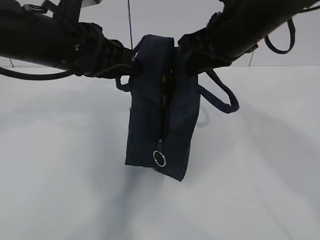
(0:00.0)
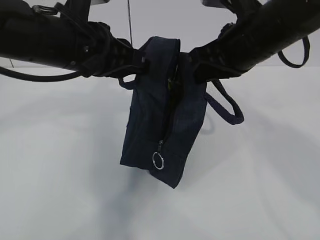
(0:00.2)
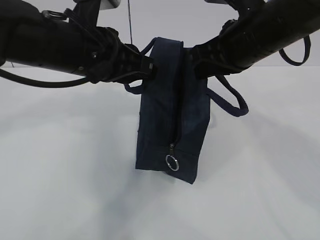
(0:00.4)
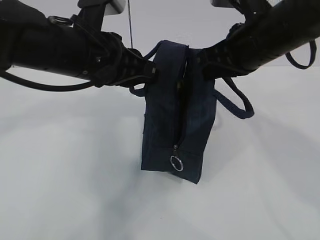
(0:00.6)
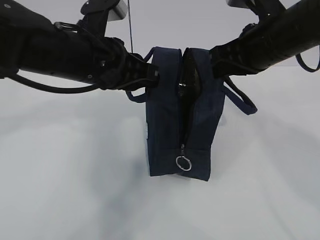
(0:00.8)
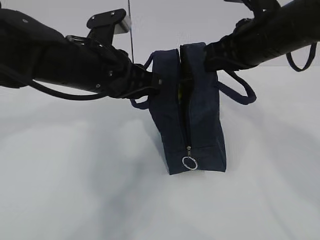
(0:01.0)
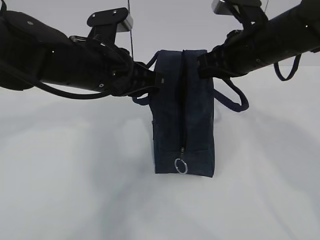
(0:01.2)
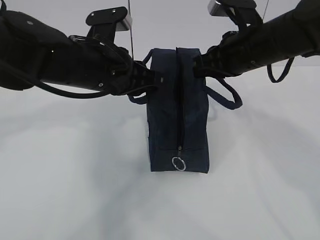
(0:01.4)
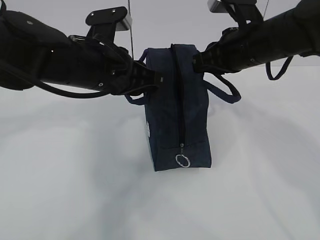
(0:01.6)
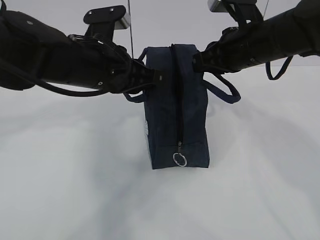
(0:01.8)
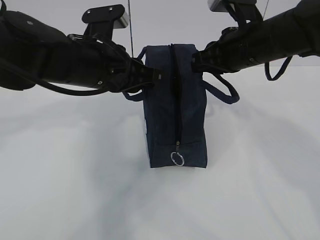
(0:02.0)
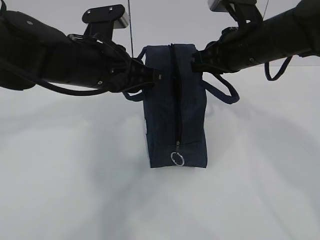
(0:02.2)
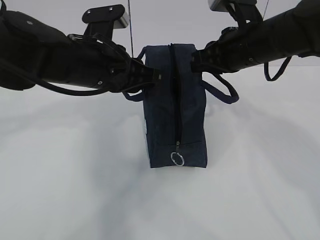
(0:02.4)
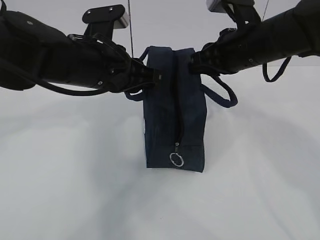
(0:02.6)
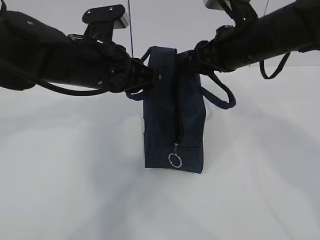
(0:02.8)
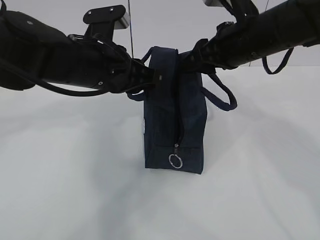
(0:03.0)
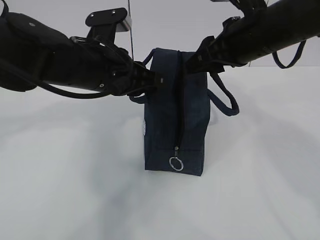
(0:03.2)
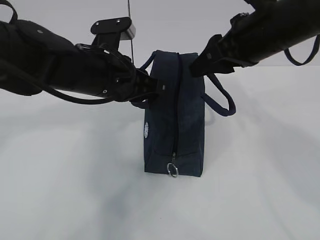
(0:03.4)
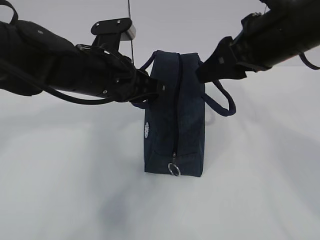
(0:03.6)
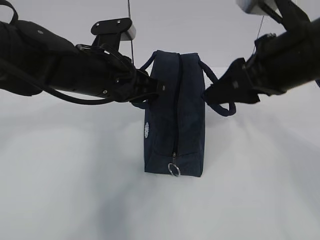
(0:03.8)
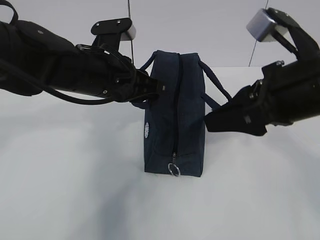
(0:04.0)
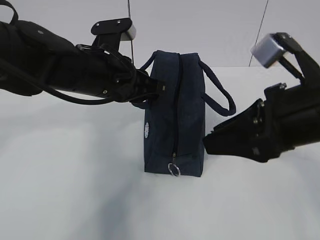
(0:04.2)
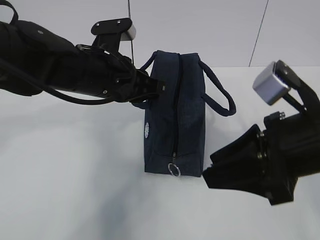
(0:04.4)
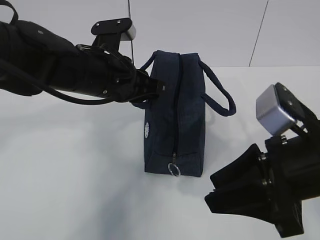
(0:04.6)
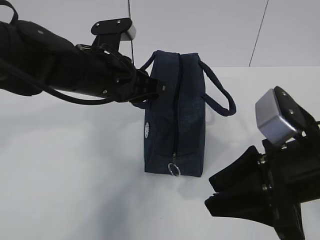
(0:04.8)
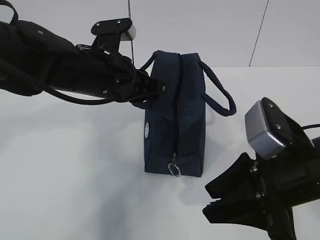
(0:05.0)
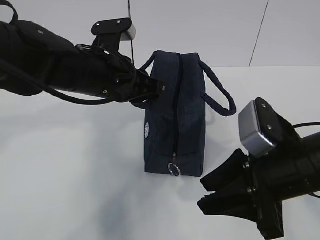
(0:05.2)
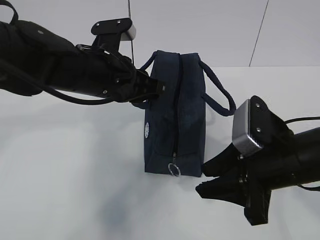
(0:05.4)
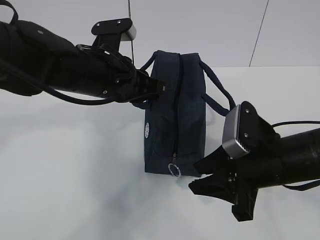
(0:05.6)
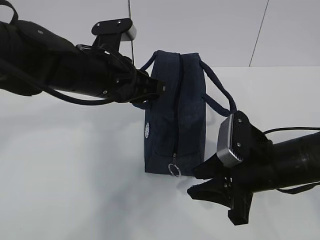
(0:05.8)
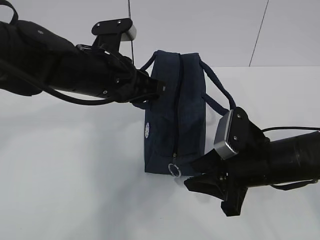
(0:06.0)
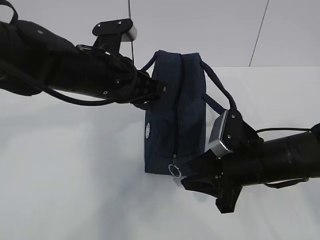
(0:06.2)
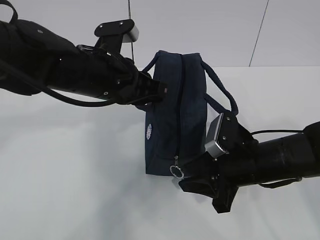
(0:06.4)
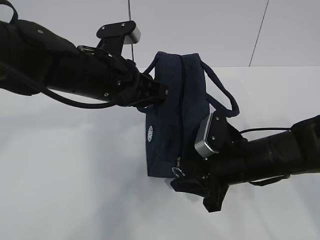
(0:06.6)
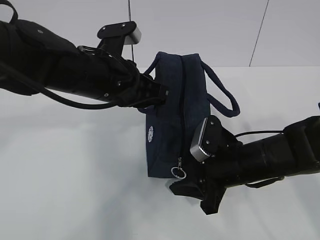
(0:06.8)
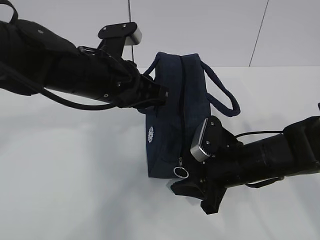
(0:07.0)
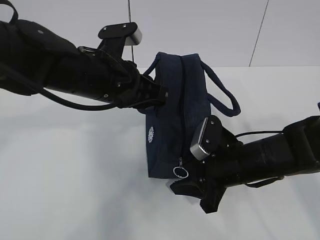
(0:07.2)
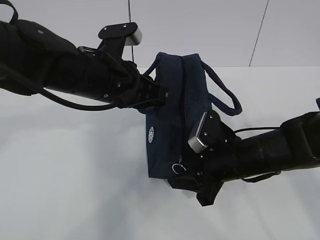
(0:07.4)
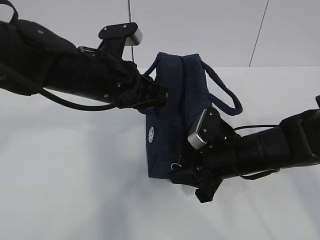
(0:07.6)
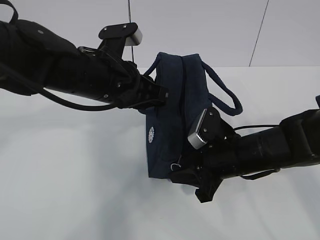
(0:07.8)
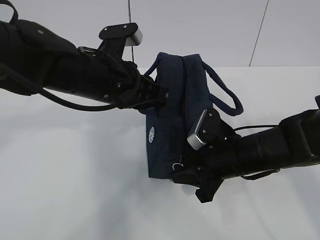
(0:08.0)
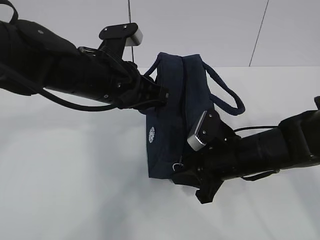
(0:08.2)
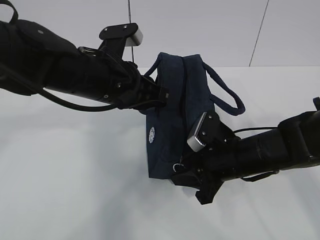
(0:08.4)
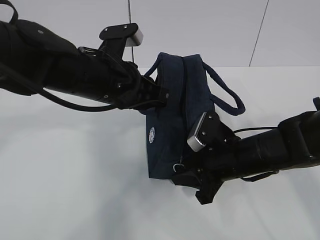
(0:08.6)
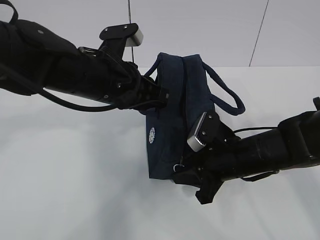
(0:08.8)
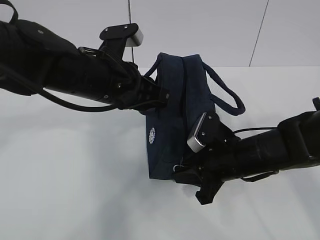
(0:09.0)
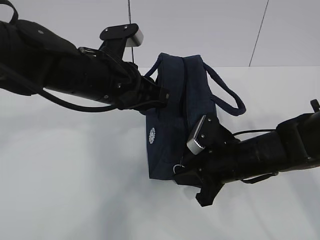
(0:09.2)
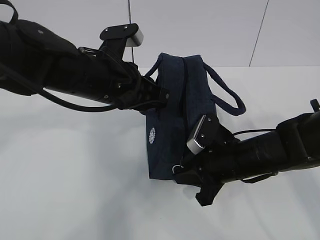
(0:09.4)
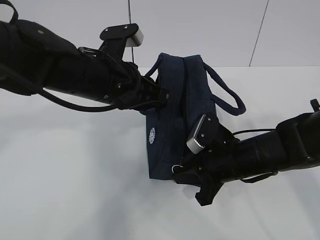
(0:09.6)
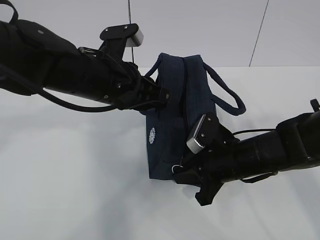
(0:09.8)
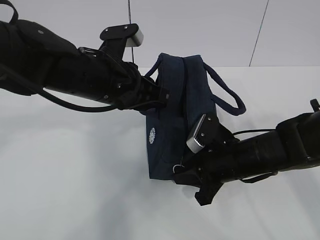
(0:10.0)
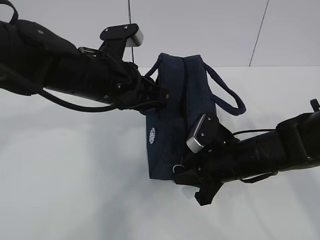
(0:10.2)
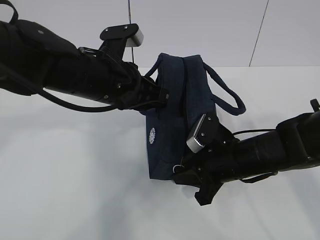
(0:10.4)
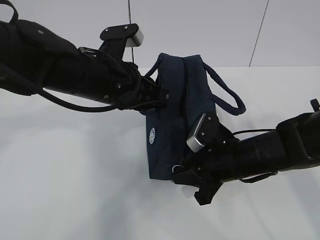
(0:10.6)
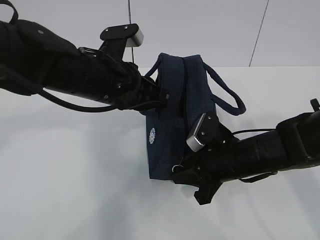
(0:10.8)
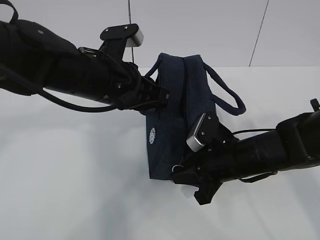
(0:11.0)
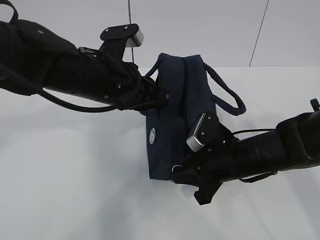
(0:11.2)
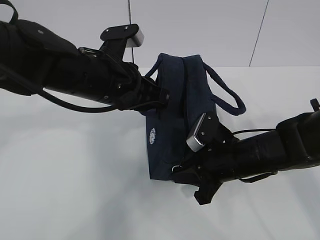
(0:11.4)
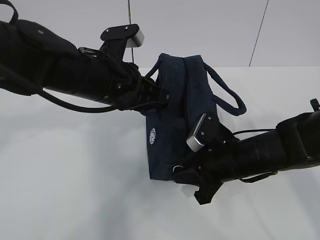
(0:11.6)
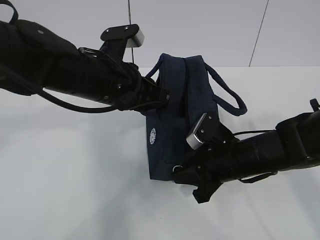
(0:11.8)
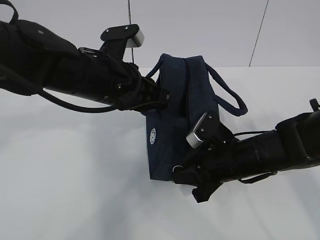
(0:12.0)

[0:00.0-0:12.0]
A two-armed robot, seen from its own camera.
Step, 0:00.0 to 0:10.0: Grab the lunch bag with your left hand.
0:00.0 to 0:01.6: The right gripper moves approximately 5 cm.
0:01.6 to 0:03.0: The right gripper opens its fingers.
0:03.0 to 0:04.4: The right gripper moves backward, approximately 15 cm.
0:04.4 to 0:06.0: The right gripper shifts some 10 cm downward and forward.
0:06.0 to 0:07.6: The right gripper changes place by roughly 5 cm.
0:07.6 to 0:10.4: Neither gripper changes place.
0:10.4 to 0:12.0: There are only small adjustments of the grippers.

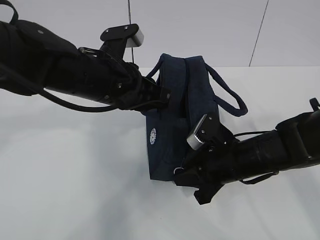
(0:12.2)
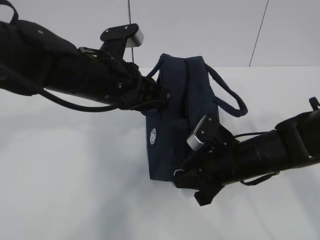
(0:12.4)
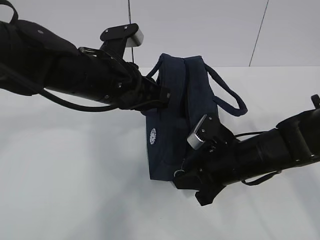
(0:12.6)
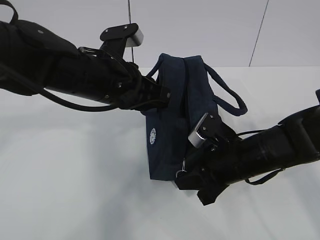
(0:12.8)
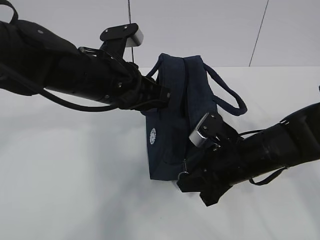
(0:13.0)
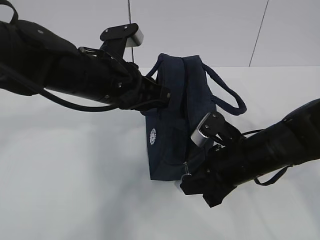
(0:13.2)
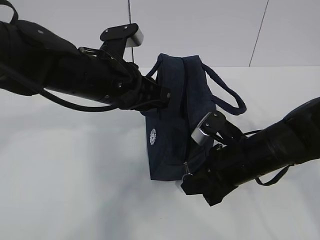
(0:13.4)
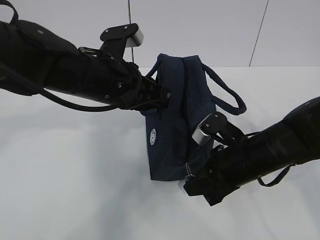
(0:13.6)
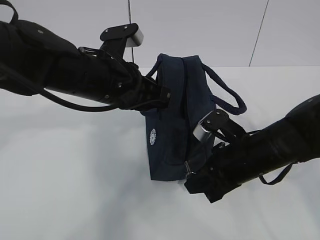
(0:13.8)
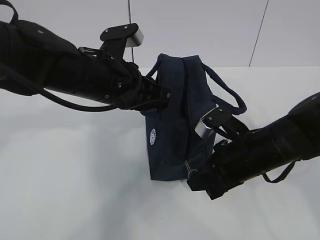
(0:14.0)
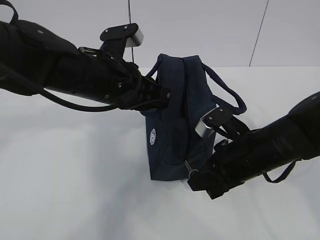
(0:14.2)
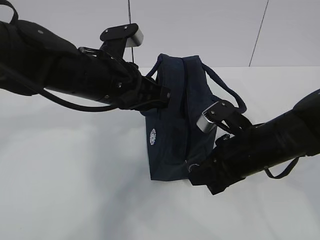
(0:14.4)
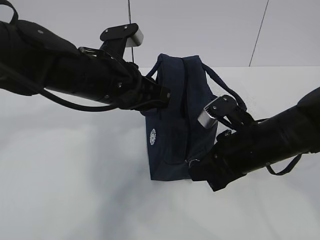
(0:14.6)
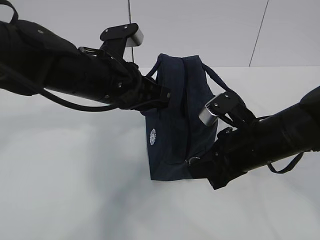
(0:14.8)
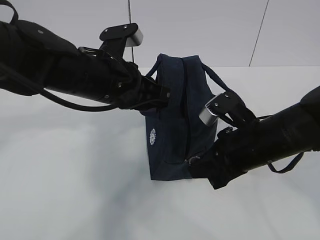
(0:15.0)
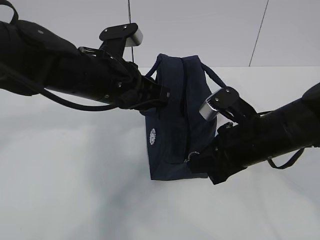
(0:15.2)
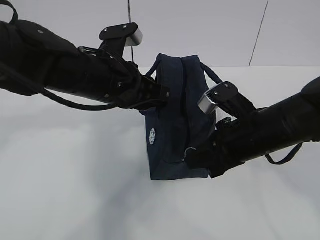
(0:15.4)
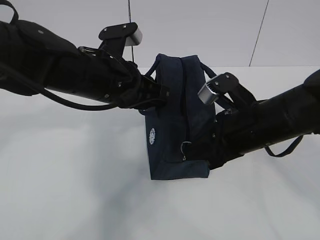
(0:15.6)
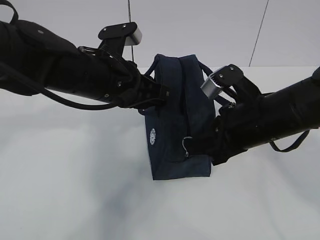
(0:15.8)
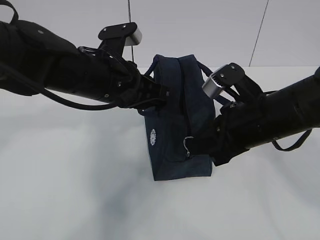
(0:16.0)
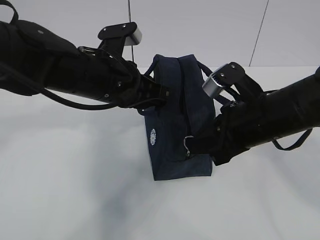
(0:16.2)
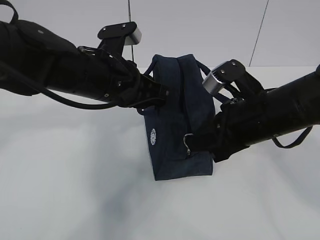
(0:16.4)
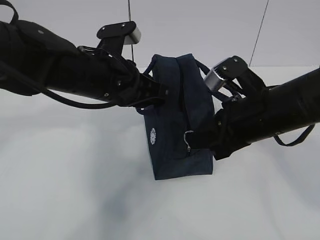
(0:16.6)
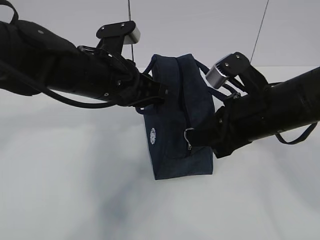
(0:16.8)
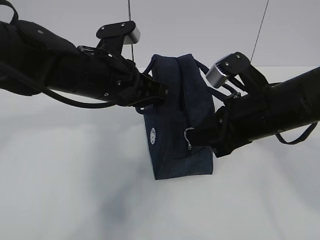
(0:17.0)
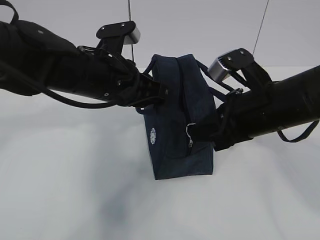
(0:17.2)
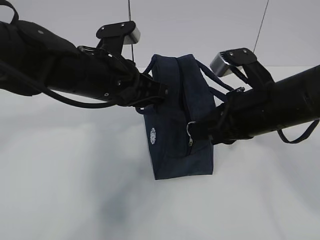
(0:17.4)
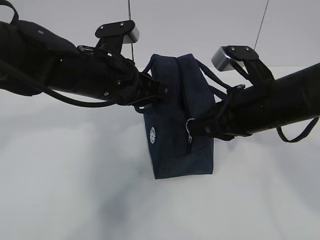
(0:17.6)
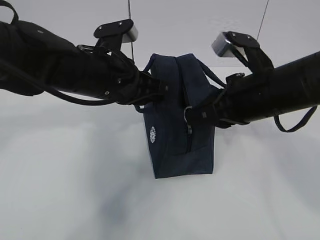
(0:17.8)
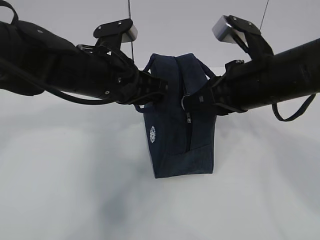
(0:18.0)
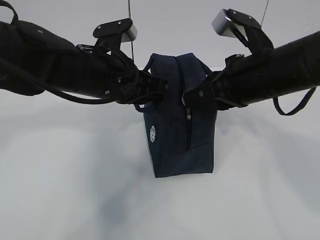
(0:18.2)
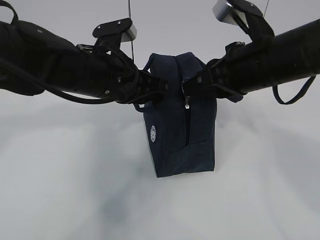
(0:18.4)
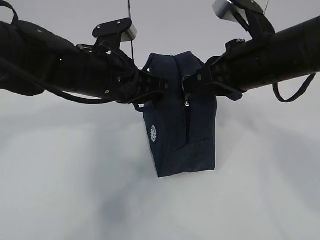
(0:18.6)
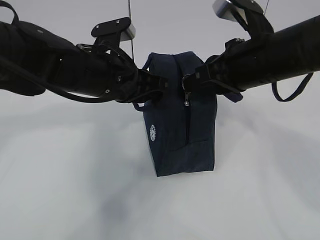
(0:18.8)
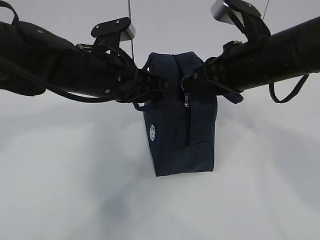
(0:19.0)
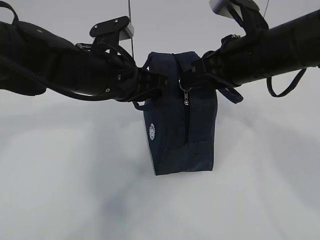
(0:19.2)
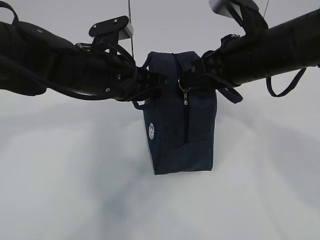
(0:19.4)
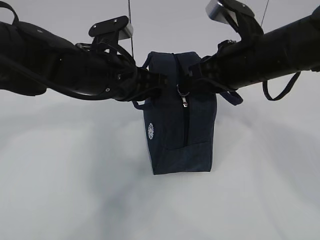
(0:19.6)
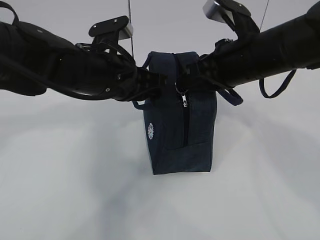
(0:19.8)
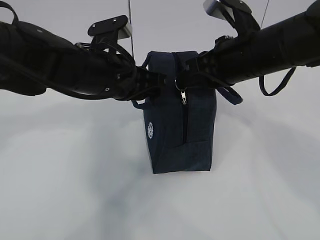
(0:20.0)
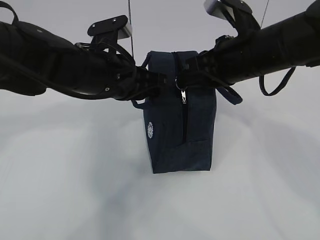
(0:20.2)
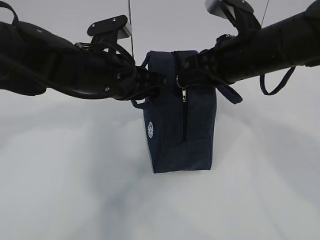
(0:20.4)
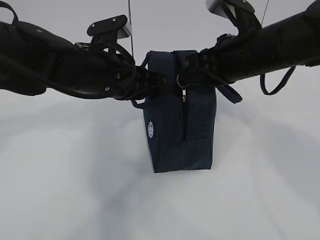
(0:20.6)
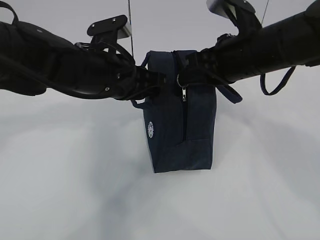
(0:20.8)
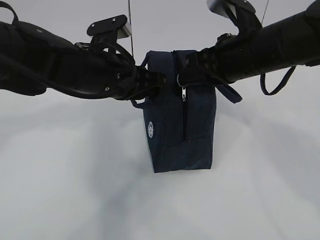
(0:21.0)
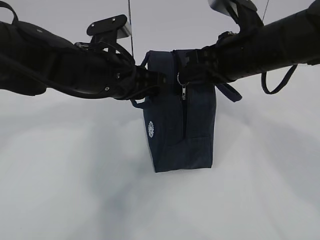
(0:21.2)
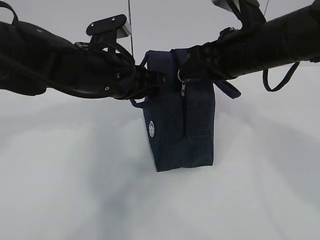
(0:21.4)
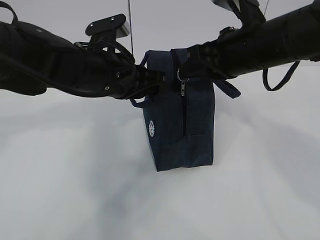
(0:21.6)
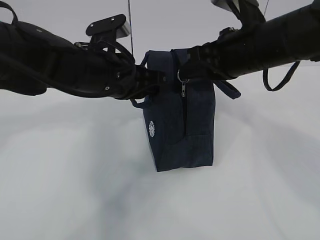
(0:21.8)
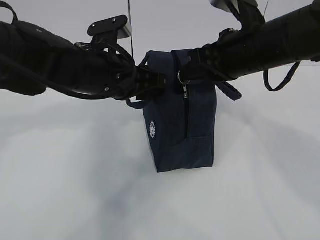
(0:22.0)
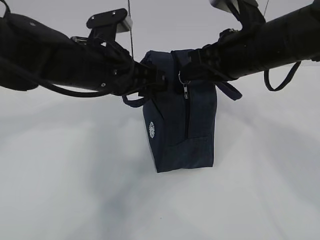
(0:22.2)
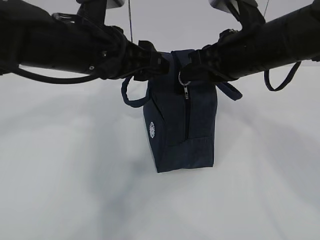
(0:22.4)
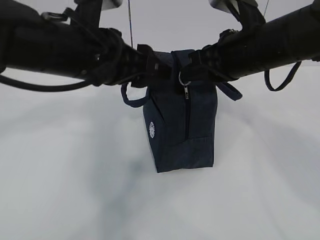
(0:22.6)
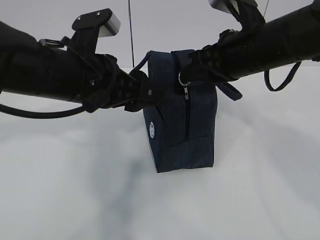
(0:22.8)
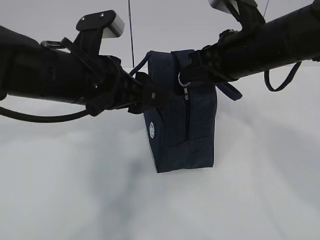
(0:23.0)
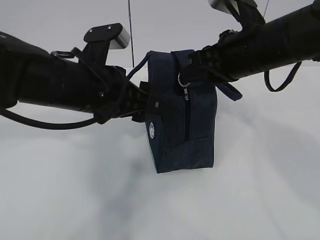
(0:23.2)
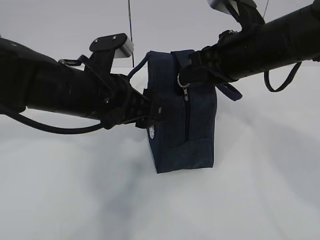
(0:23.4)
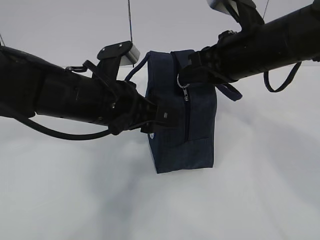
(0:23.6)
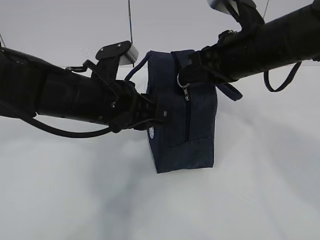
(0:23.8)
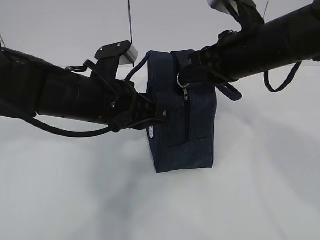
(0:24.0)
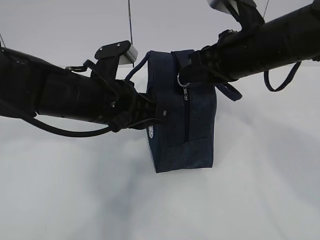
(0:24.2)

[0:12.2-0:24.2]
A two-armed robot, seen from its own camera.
0:12.2 to 0:13.8: The grippers stay close to where they were, moving slightly.
0:13.8 to 0:15.2: The grippers stay close to where they were, moving slightly.
0:15.2 to 0:16.6: The grippers stay close to where they were, moving slightly.
0:16.6 to 0:18.2: There are only small adjustments of the grippers.
0:18.2 to 0:21.2: The grippers stay close to where they were, moving slightly.
0:21.2 to 0:22.6: The left gripper shifts by approximately 5 cm, and opens.
0:22.6 to 0:24.2: The left gripper shifts approximately 5 cm downward, and closes its fingers.
